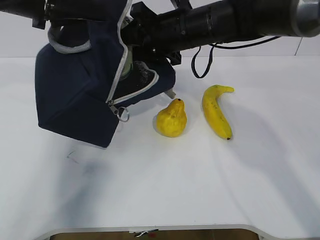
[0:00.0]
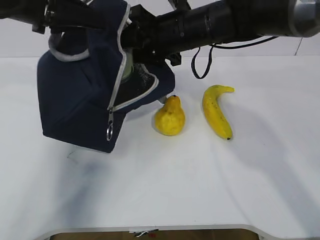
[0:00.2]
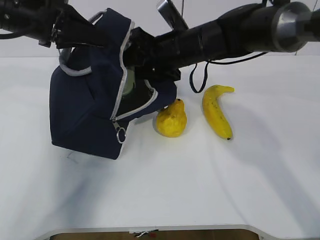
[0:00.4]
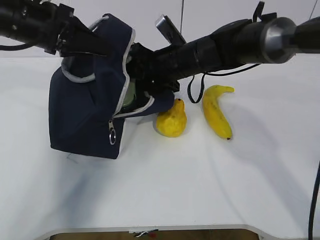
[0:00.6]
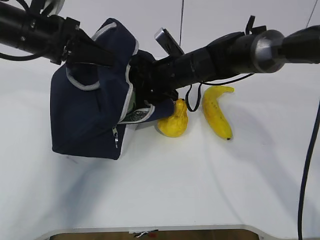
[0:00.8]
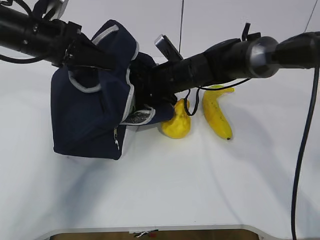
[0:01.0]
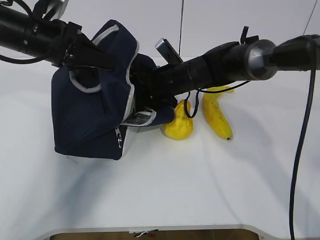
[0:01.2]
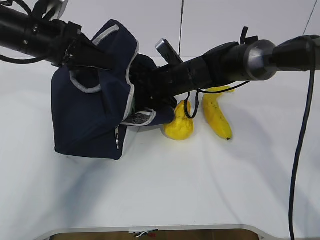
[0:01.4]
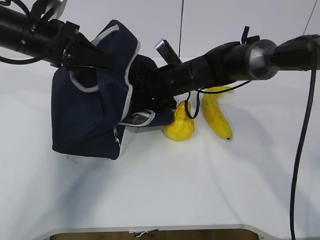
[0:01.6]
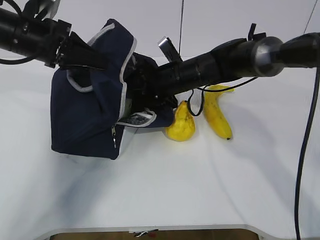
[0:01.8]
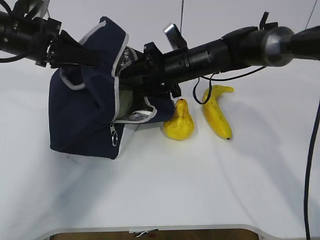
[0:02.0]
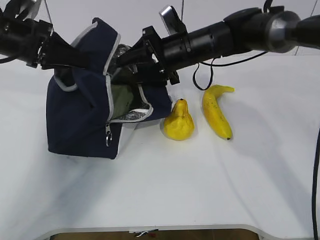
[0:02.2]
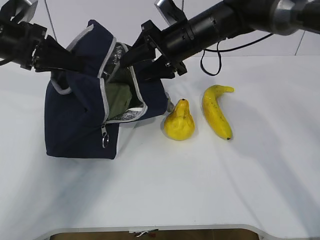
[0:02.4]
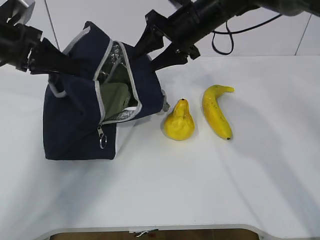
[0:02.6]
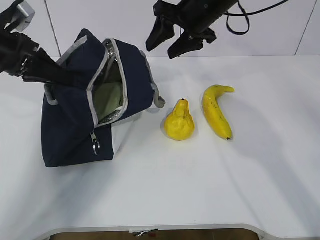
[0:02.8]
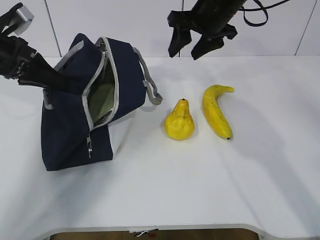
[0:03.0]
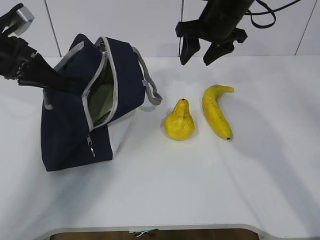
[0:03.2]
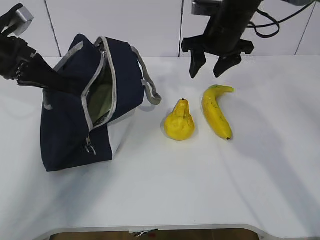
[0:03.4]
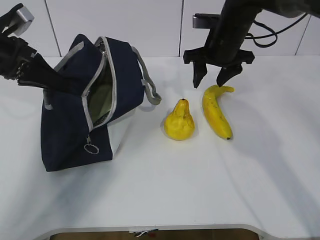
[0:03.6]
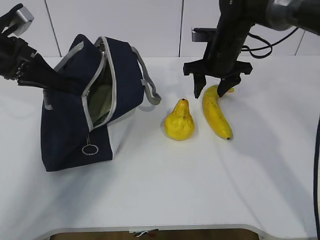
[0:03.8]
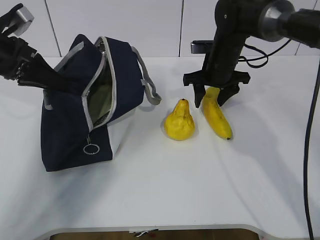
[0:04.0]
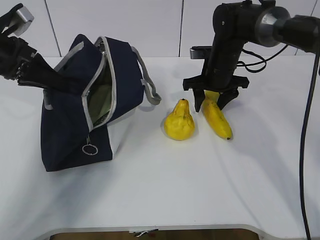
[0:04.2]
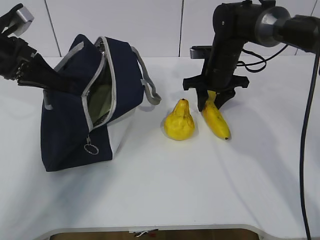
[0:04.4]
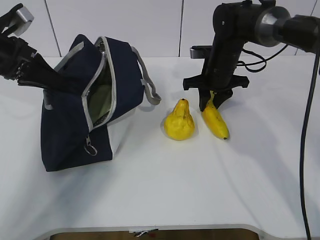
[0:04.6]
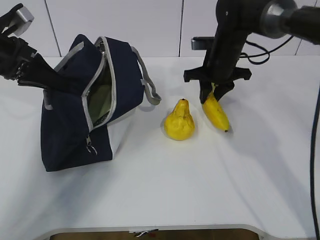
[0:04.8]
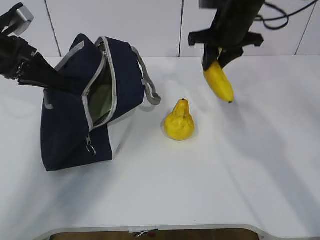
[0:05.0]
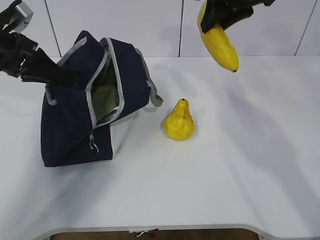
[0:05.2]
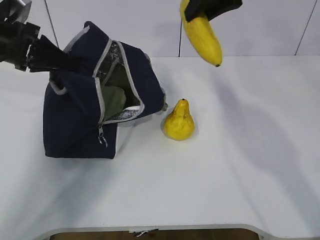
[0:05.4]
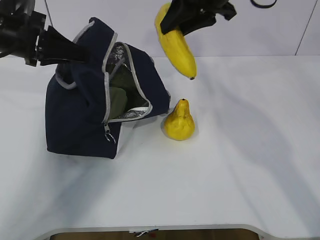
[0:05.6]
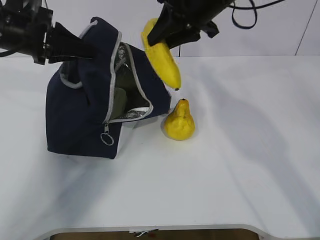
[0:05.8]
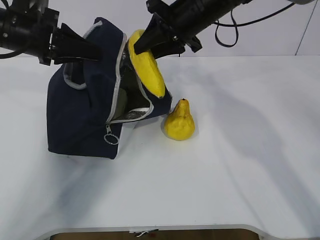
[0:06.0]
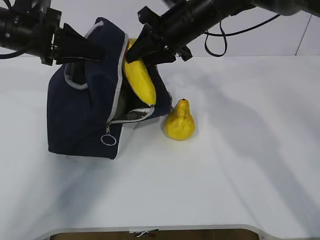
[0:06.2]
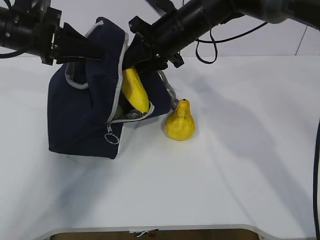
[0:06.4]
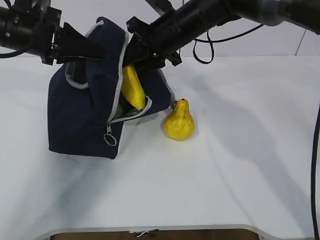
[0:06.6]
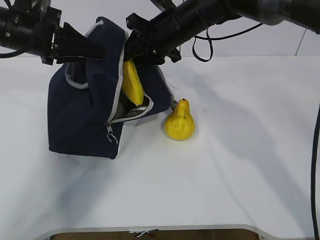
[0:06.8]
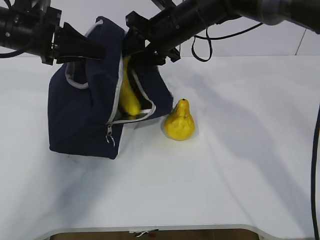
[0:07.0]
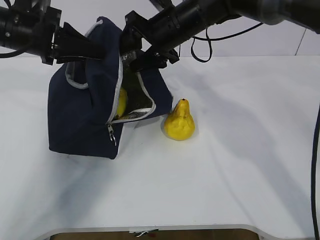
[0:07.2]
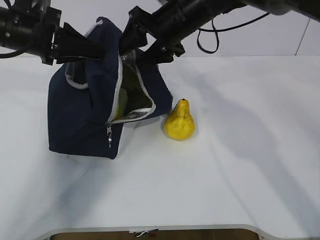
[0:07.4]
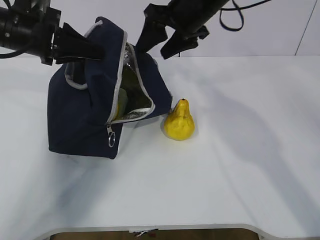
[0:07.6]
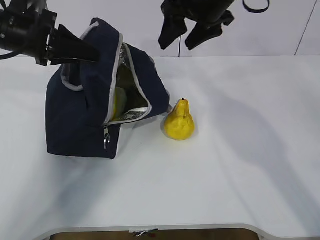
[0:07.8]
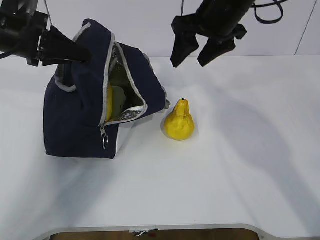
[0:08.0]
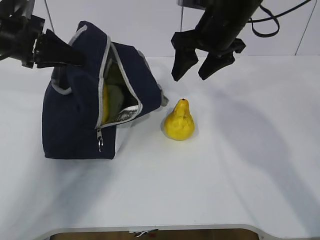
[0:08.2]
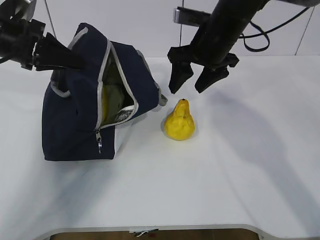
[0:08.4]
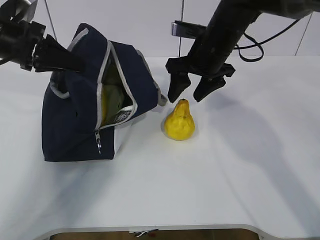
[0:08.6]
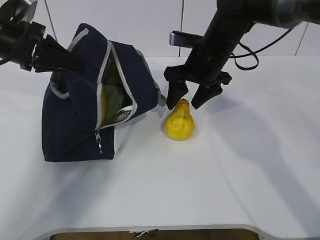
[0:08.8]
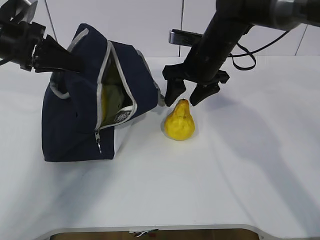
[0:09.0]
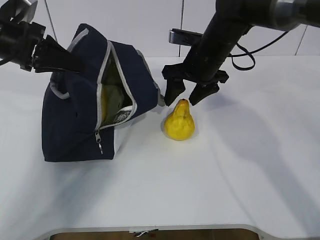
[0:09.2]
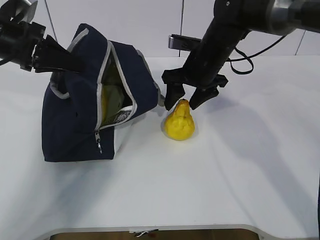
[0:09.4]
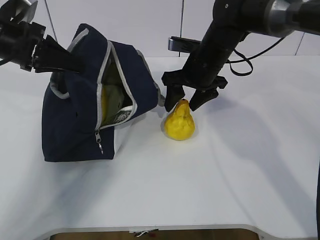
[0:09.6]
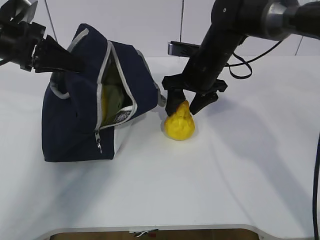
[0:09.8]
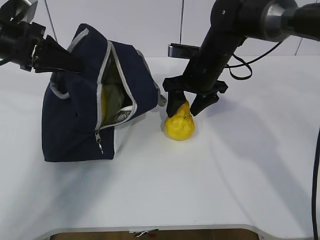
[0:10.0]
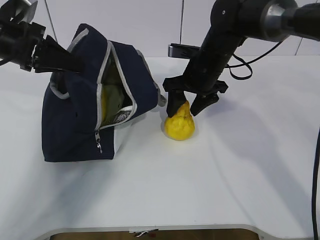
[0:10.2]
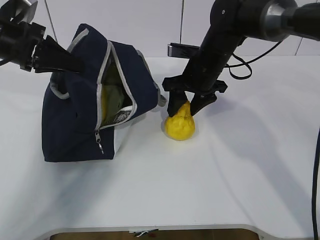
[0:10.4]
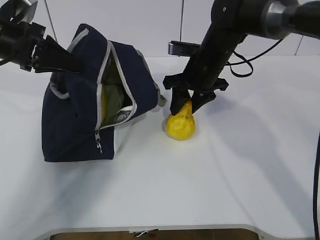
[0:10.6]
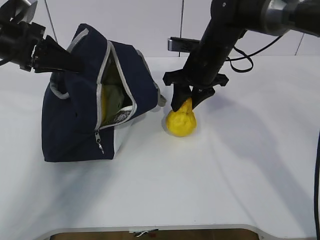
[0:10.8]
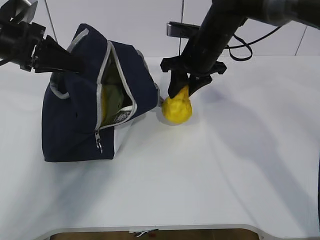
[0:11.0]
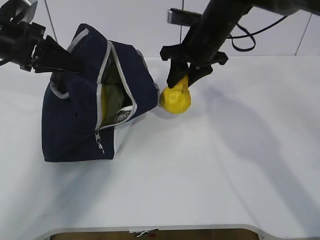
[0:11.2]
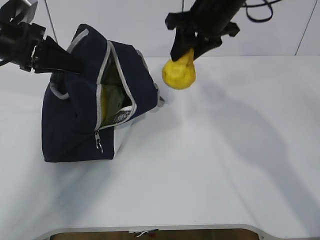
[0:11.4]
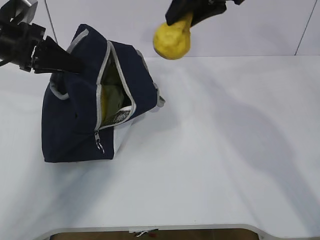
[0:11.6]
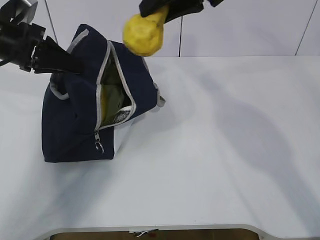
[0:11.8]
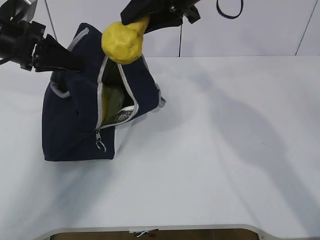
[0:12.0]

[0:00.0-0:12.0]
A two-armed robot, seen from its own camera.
Step, 0:00.8 to 0:02.8: Place it into the bag with your right hand.
Step, 0:03.0 to 0:05.6: Grab the pear with your right hand.
Step, 0:08.0 to 0:09.4: Grab the lunch bag with your right hand.
Step, 0:09.6 to 0:11.4: Move the lunch bag to the right.
0:00.0 to 0:01.6: The grippers both shift downward by about 10 cm.
0:01.6 to 0:03.0: The left gripper shifts some 5 cm to the left. The right gripper is displaced upward and to the right by about 15 cm.
0:03.0 to 0:04.4: The right gripper travels downward by approximately 10 cm.
0:04.4 to 0:06.0: The left gripper changes place by about 5 cm, while the right gripper shifts approximately 15 cm upward and to the left.
0:06.0 to 0:07.6: The right gripper opens its fingers.
0:07.6 to 0:09.0: The right gripper shifts roughly 10 cm downward.
0:09.0 to 0:10.4: The grippers make only small movements.
0:10.4 to 0:12.0: The right gripper shifts roughly 15 cm upward.

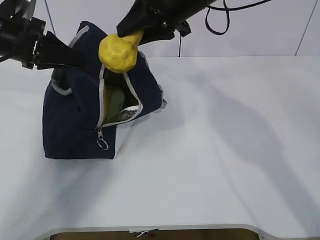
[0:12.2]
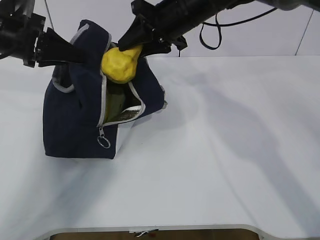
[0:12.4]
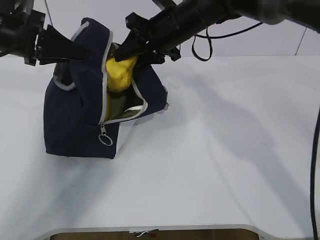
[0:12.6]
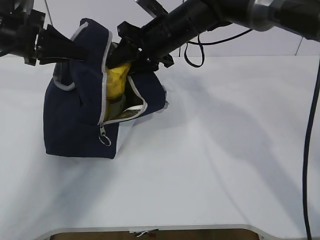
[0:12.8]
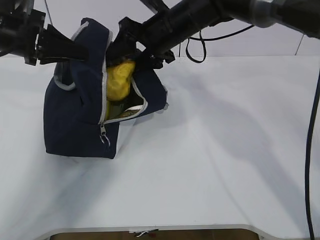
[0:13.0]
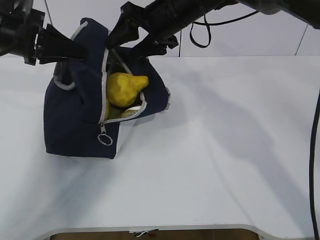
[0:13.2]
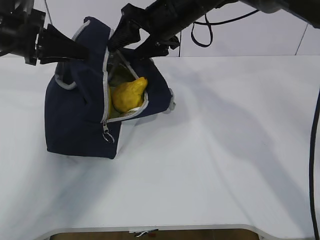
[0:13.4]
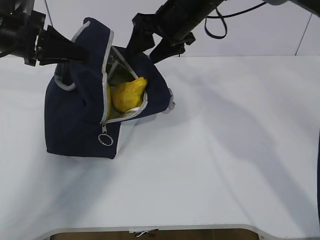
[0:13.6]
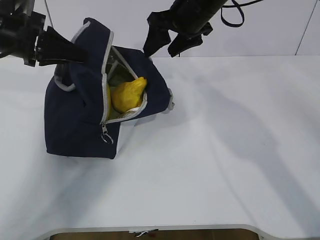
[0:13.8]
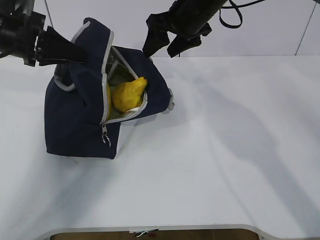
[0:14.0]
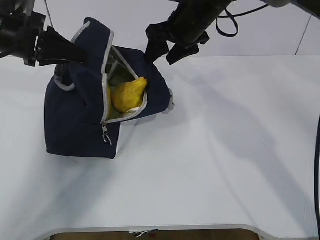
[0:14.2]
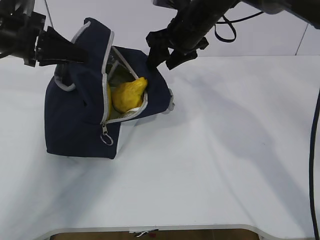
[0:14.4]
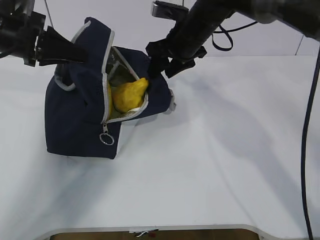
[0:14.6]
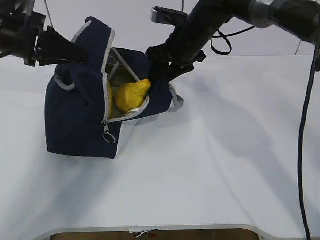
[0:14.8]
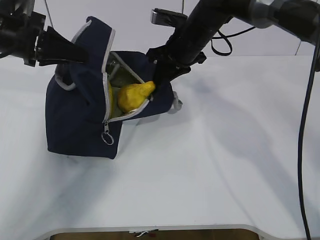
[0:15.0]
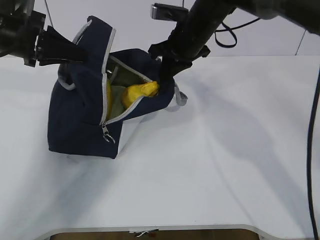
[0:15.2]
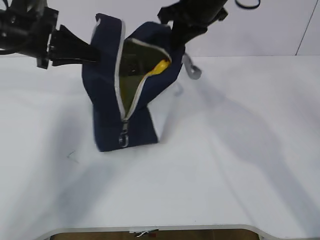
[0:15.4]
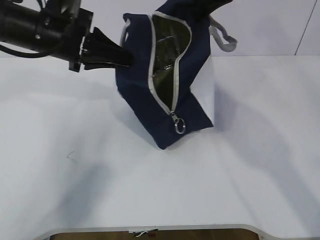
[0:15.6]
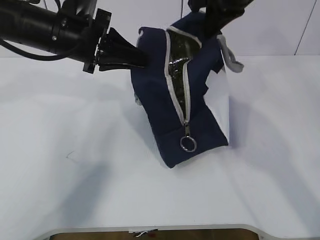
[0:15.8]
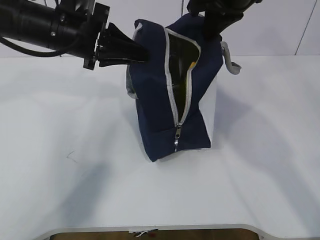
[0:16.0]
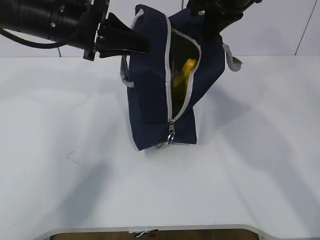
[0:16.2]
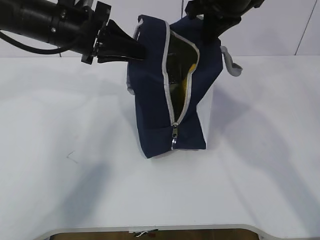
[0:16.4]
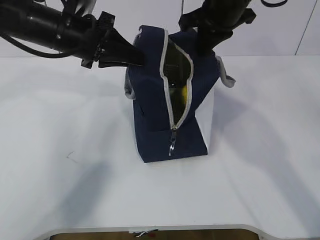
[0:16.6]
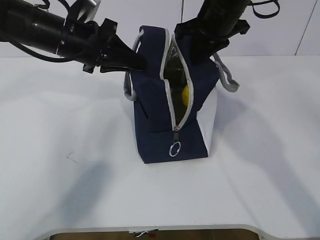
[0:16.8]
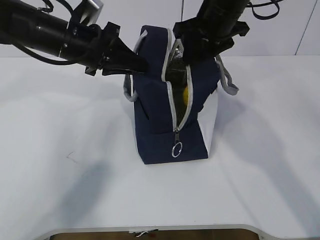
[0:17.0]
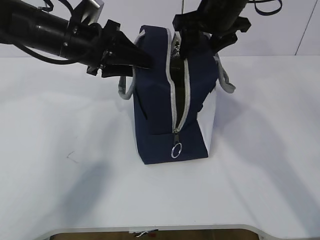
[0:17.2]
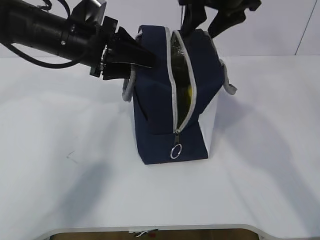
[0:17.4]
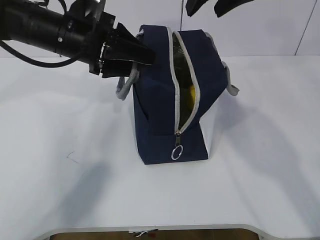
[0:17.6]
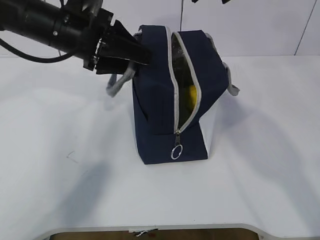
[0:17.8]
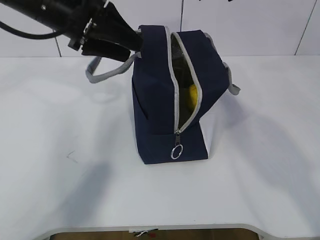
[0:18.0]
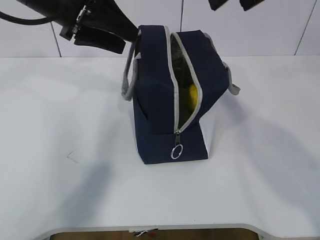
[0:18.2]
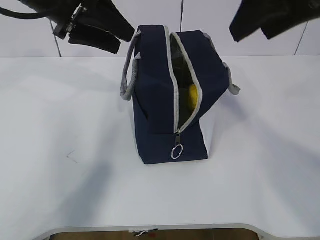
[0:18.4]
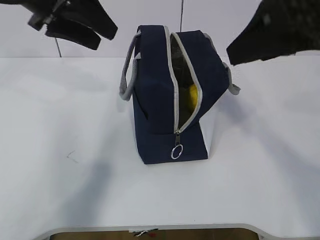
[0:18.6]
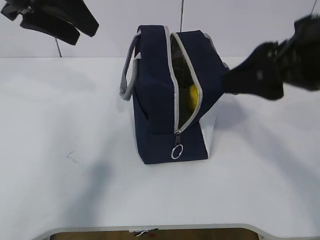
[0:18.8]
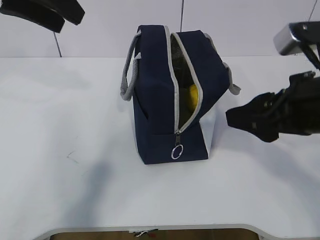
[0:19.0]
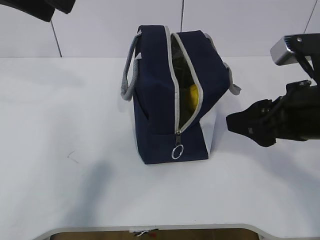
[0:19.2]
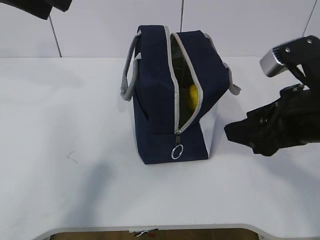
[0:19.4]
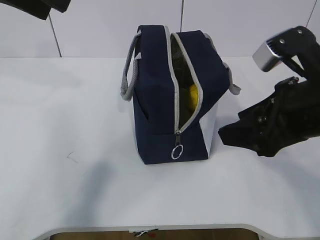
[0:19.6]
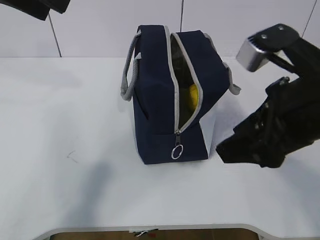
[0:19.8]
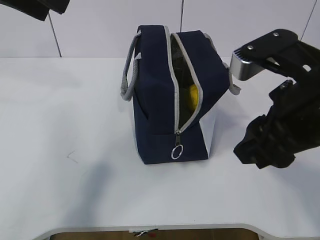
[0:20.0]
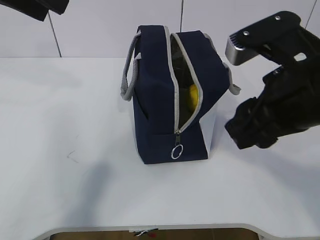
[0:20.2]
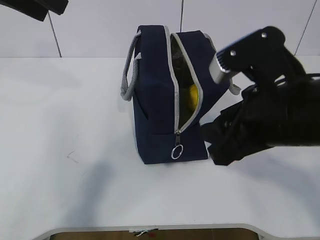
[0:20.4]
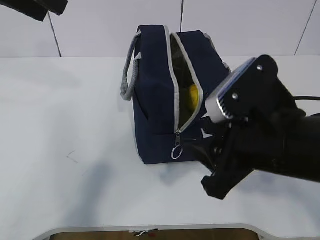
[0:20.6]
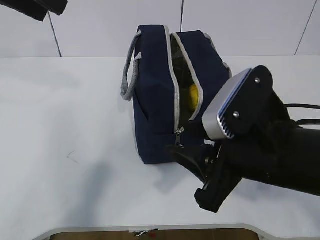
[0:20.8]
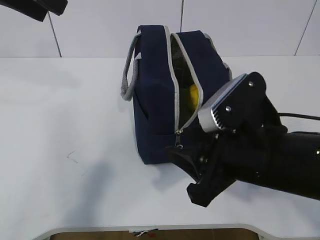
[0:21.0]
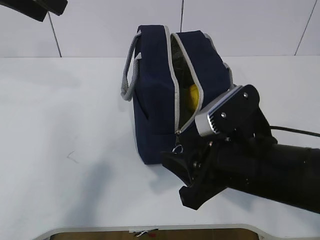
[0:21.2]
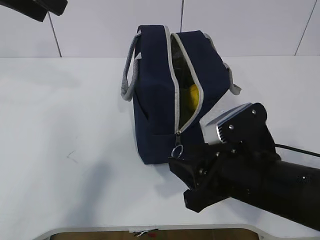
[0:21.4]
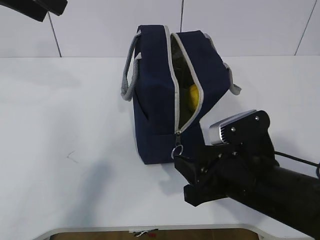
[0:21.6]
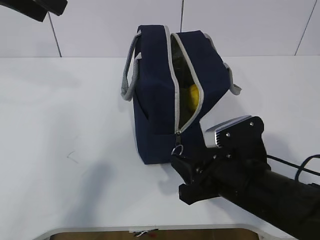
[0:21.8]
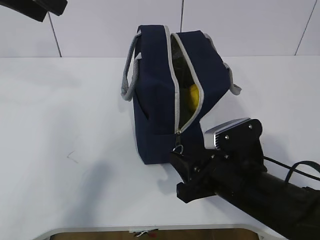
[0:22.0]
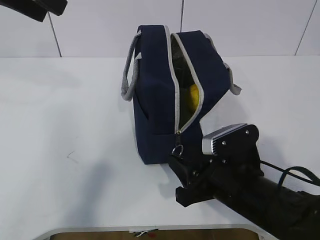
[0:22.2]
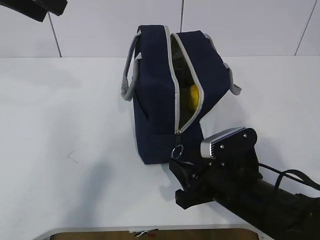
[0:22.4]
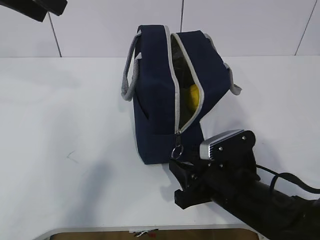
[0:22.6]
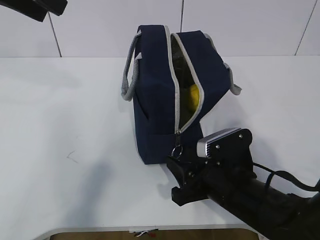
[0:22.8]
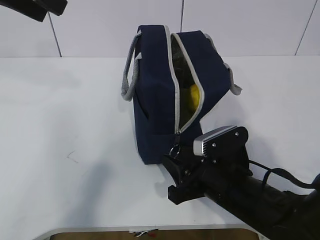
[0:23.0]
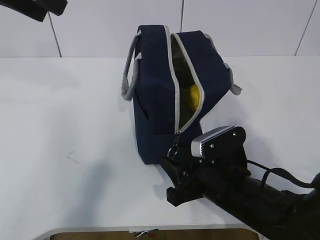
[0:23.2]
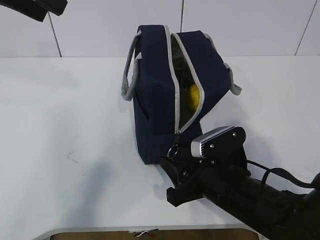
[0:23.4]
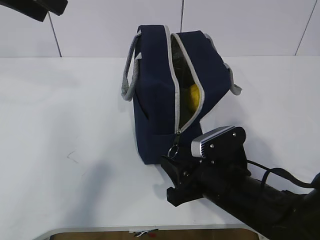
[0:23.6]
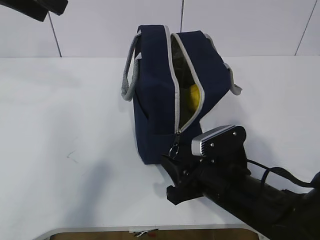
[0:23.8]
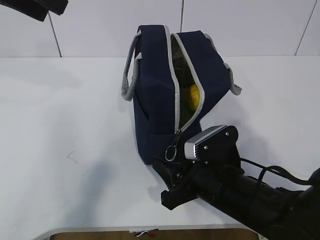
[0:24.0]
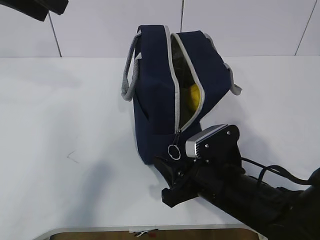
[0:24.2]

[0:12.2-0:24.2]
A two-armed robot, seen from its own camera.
0:12.2 to 0:13.8: The right gripper opens up.
0:13.8 to 0:15.2: The right gripper heads downward, covering roughly 5 cm, and closes its fingers.
0:15.2 to 0:16.6: The left gripper is displaced to the right by about 10 cm, while the right gripper travels upward by about 10 cm.
0:16.6 to 0:18.2: The left gripper goes about 5 cm upward, and opens, while the right gripper shifts some 15 cm backward and upward, and opens.
0:18.2 to 0:19.8: The left gripper shifts some 10 cm upward and backward. Meanwhile the right gripper moves downward and backward, some 20 cm.
0:19.8 to 0:21.2: The right gripper heads downward, covering approximately 10 cm.
0:21.2 to 0:22.6: The right gripper travels downward by about 10 cm.
0:22.6 to 0:24.2: There are only small adjustments of the grippers.
